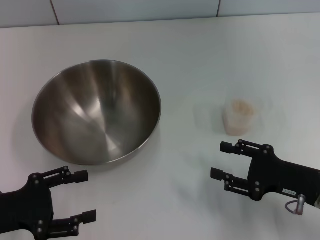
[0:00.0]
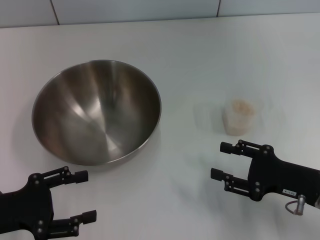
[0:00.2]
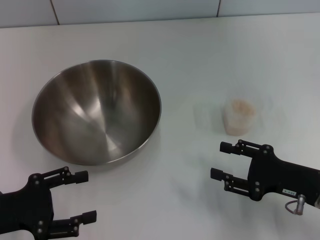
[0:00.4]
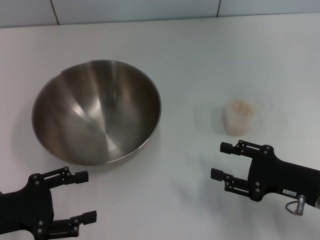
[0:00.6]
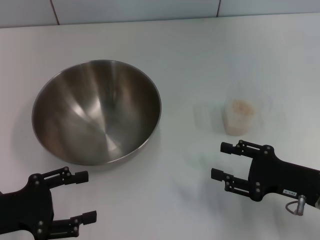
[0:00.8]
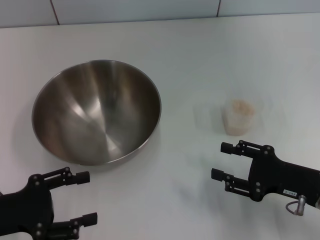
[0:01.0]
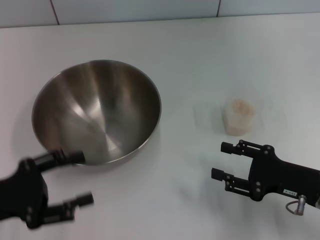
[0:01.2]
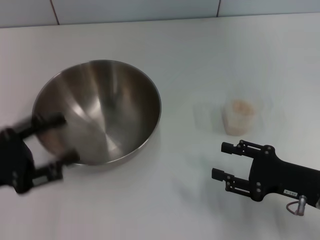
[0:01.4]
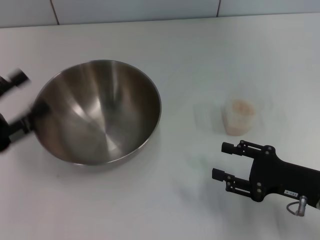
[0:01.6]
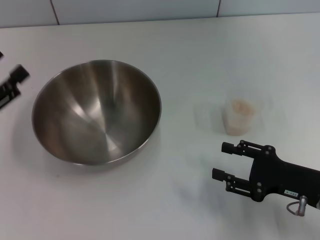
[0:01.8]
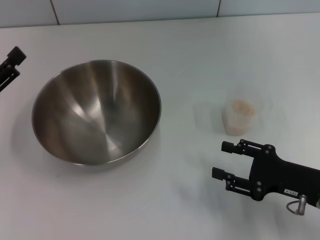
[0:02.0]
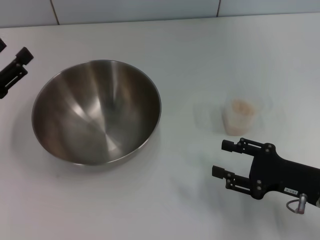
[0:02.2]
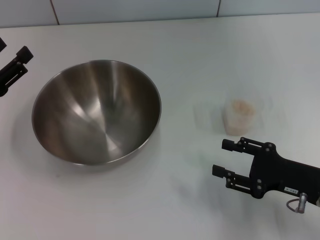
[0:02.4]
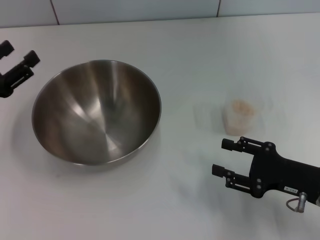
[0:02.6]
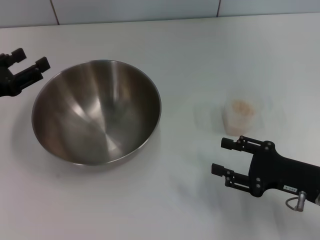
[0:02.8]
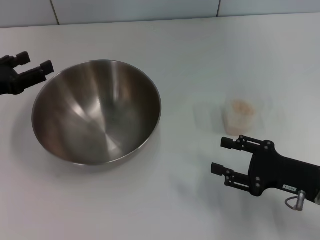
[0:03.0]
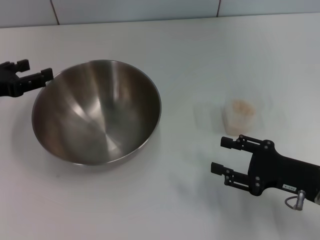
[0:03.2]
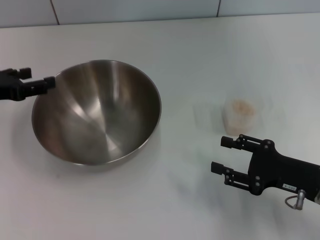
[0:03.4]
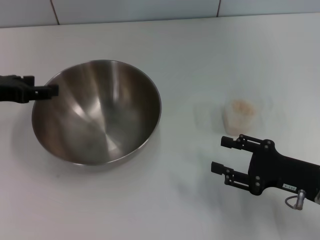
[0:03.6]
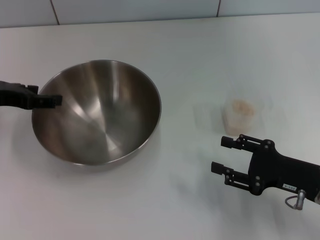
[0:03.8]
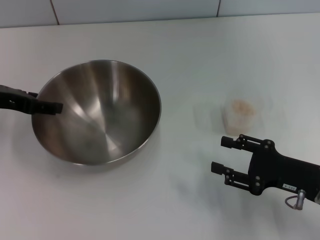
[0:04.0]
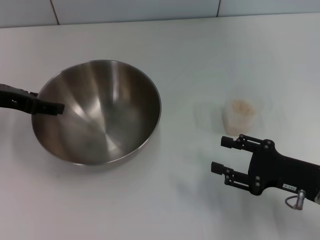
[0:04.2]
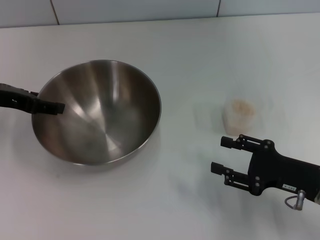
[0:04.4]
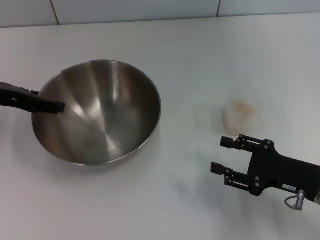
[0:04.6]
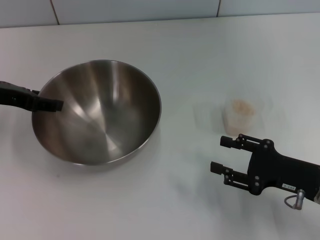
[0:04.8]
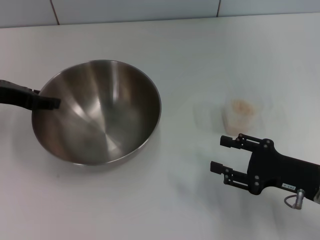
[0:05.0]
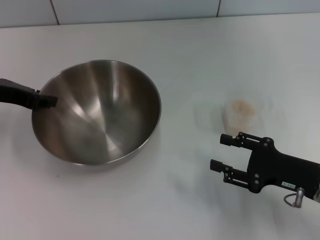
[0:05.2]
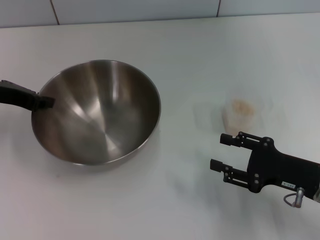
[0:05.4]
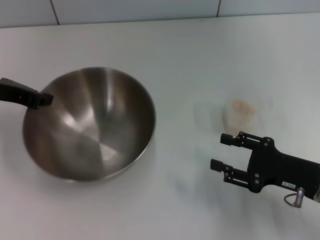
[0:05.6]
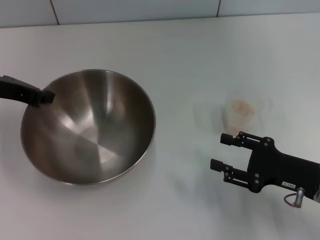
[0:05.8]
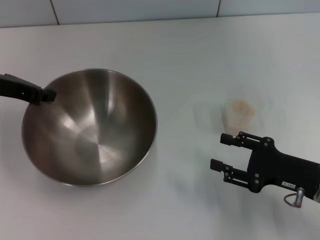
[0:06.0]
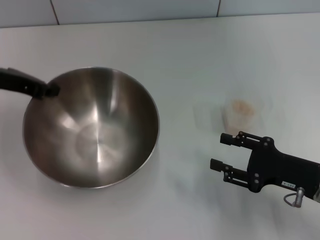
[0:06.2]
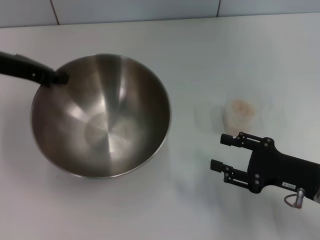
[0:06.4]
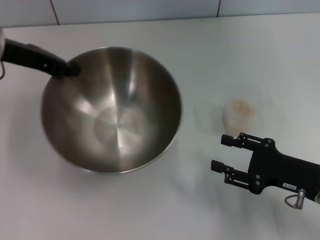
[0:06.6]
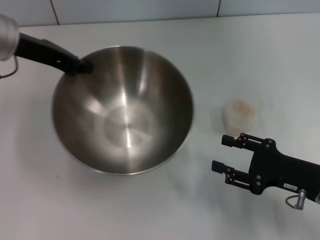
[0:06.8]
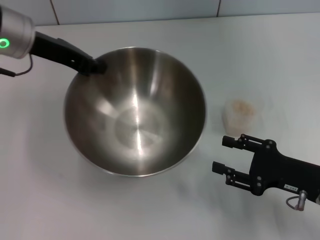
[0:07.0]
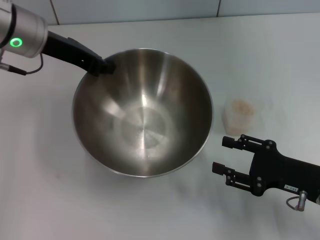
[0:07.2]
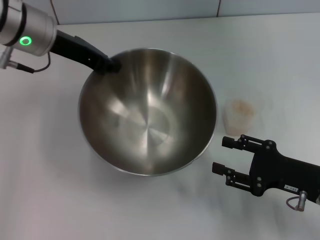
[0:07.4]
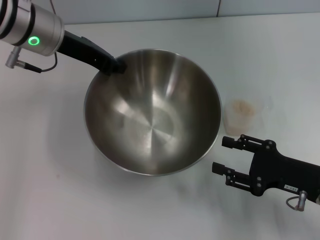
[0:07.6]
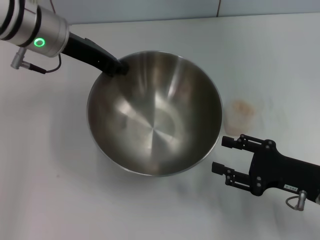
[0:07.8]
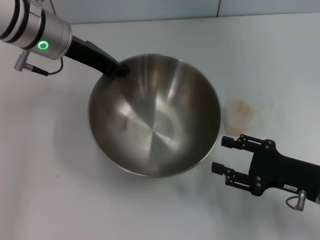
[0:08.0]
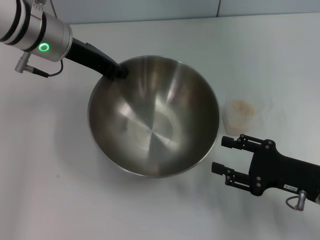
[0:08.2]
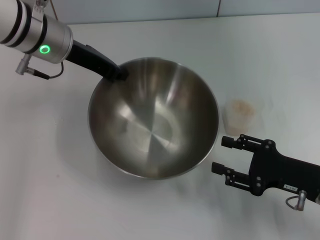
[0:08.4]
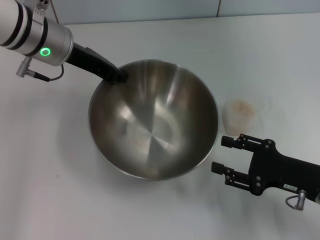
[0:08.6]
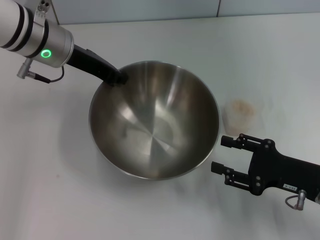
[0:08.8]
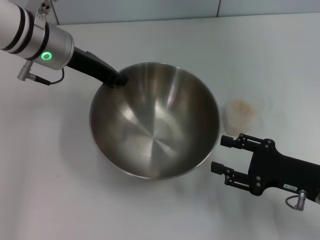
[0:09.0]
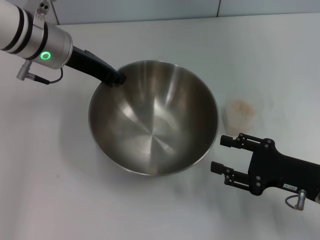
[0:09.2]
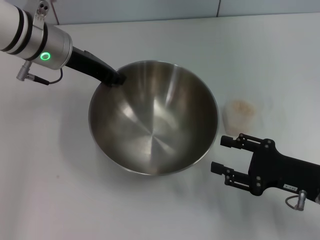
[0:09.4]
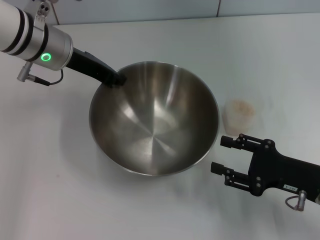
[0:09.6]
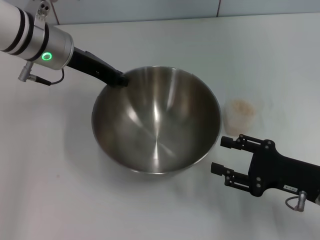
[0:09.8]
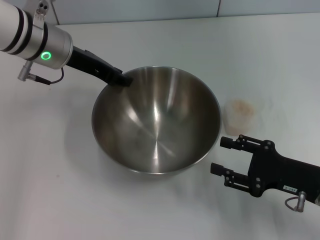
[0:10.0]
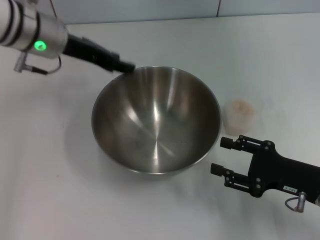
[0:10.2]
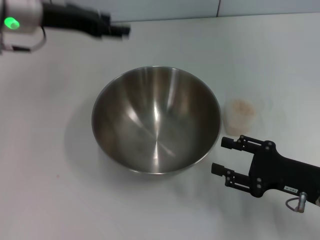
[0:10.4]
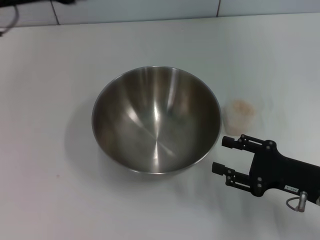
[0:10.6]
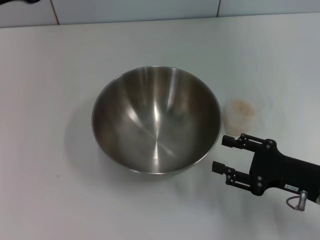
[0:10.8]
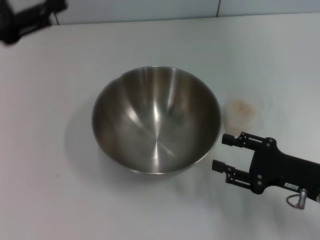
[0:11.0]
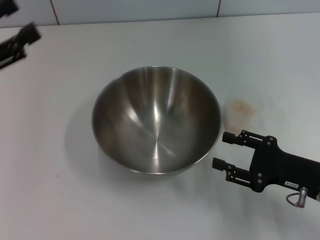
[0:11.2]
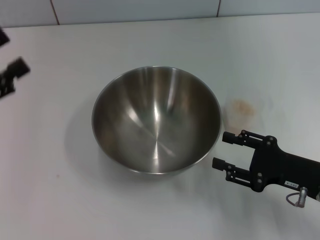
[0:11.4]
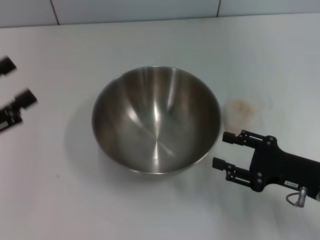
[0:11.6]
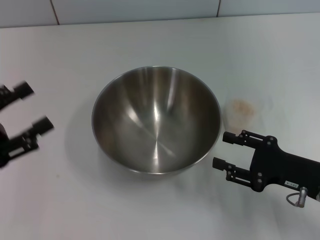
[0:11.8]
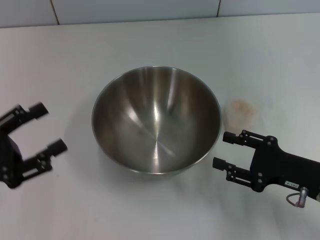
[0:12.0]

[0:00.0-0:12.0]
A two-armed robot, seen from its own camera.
Task of the whole recording: Place the bowl in the middle of the table with one hand and pour the rice from the grain cup into it with the other hand.
Step, 0:00.0 to 0:06.2: Pick up the bowl with the left gripper.
Step, 0:06.4 to 0:10.4: Place the bowl in the center of view with the left gripper.
0:01.6 to 0:03.0: The left gripper moves forward, about 10 cm.
0:03.0 to 0:04.4: The left gripper moves roughly 5 cm.
0:04.4 to 0:06.0: The left gripper closes.
0:06.0 to 0:07.6: The left gripper goes roughly 10 cm to the right.
0:07.6 to 0:09.0: The grippers make only small movements.
0:09.0 to 0:10.4: The left gripper opens its fingers.
0:10.4 to 0:12.0: The left gripper heads backward, to the left and downward, covering roughly 25 cm, and opens.

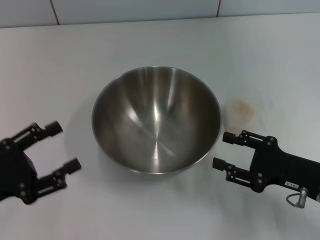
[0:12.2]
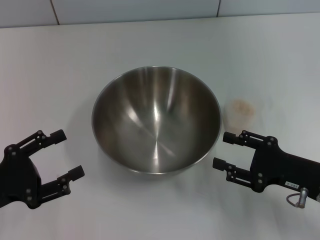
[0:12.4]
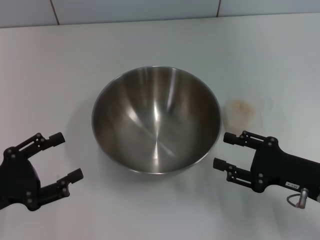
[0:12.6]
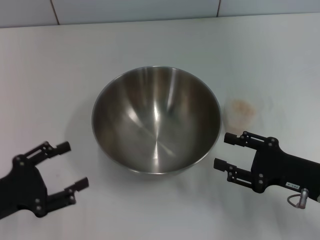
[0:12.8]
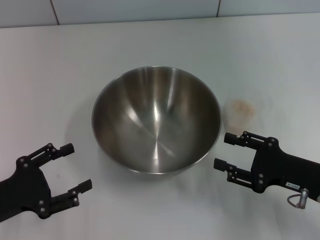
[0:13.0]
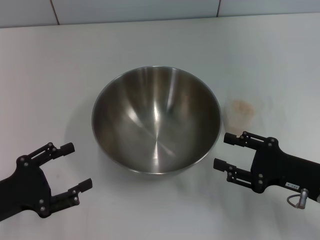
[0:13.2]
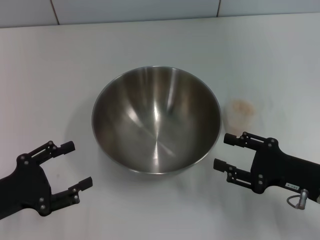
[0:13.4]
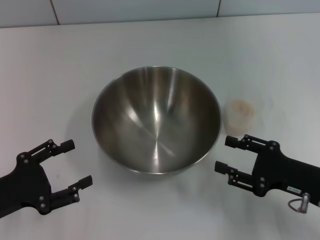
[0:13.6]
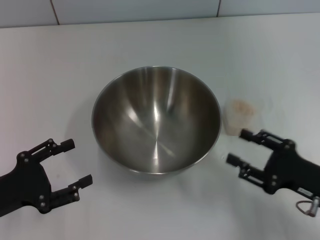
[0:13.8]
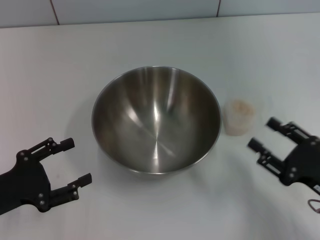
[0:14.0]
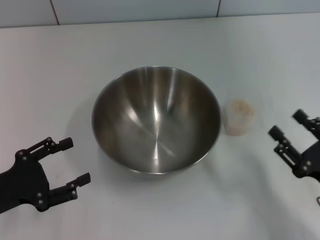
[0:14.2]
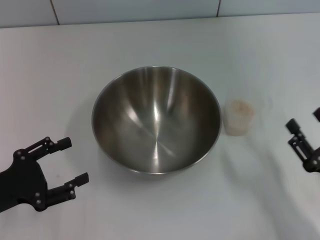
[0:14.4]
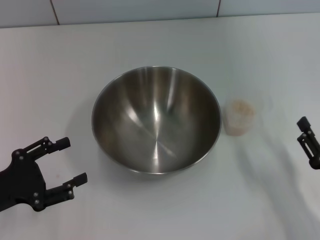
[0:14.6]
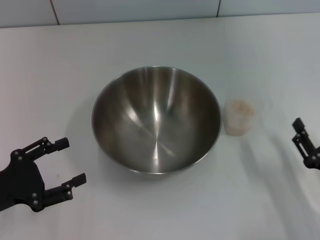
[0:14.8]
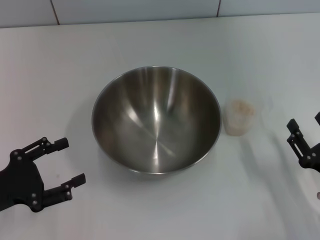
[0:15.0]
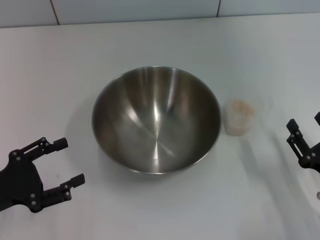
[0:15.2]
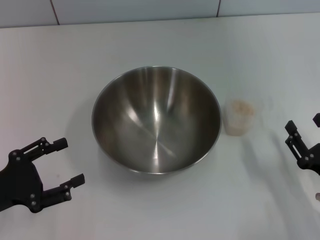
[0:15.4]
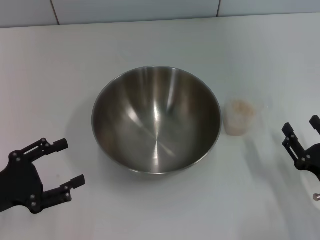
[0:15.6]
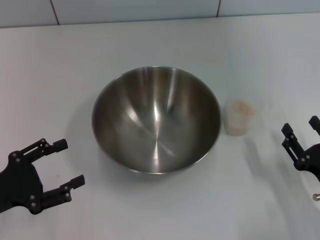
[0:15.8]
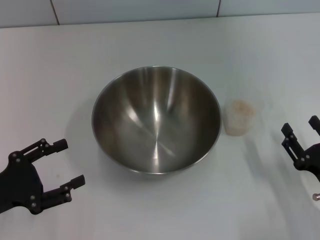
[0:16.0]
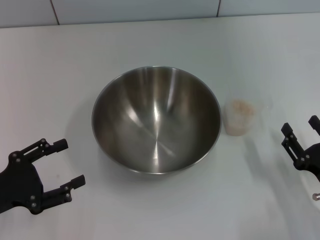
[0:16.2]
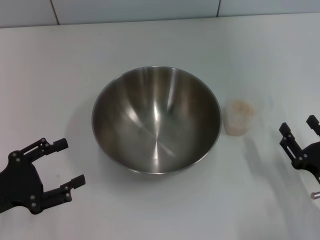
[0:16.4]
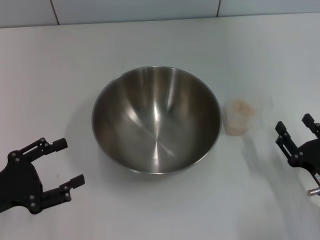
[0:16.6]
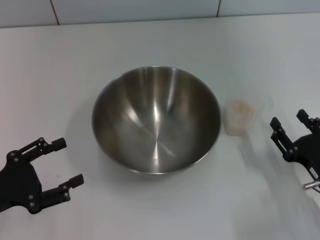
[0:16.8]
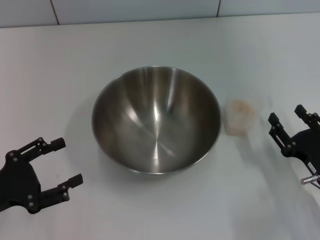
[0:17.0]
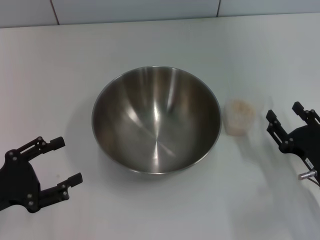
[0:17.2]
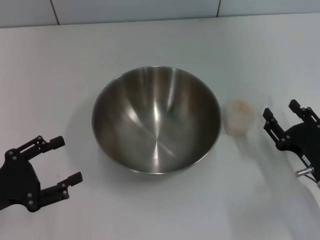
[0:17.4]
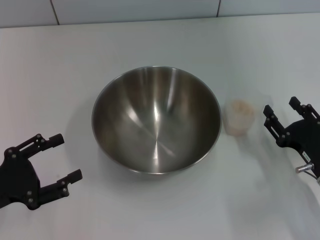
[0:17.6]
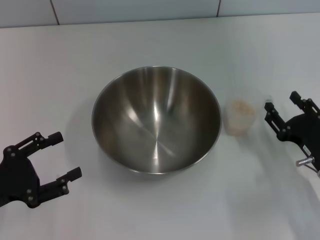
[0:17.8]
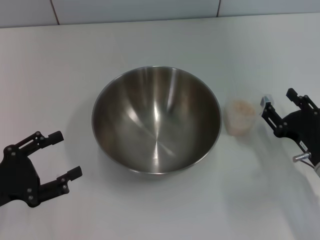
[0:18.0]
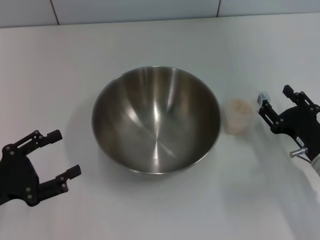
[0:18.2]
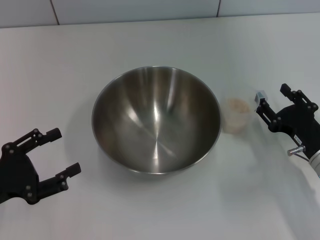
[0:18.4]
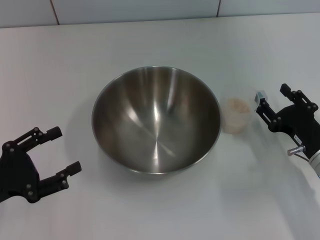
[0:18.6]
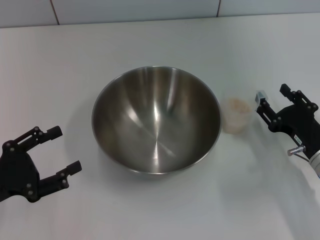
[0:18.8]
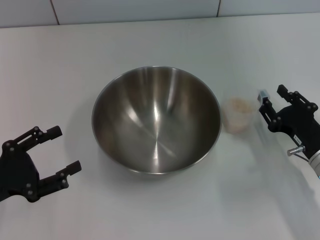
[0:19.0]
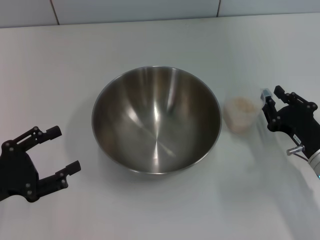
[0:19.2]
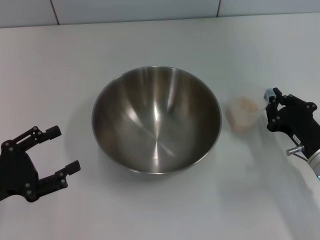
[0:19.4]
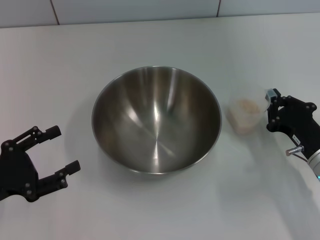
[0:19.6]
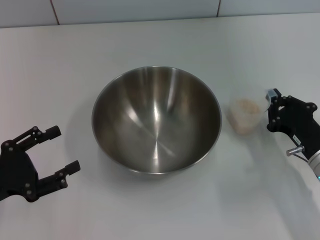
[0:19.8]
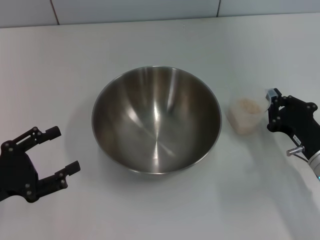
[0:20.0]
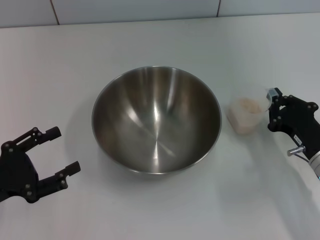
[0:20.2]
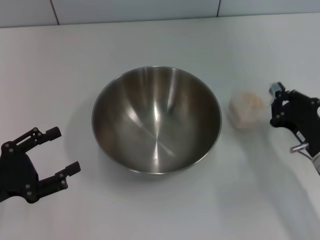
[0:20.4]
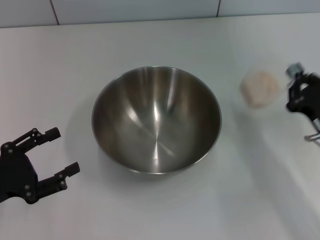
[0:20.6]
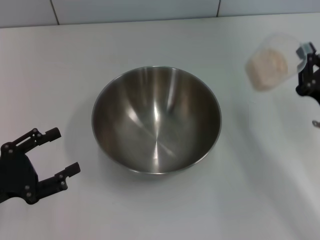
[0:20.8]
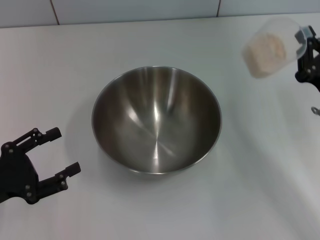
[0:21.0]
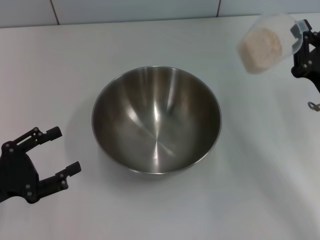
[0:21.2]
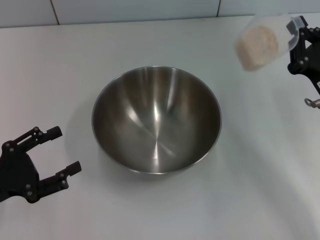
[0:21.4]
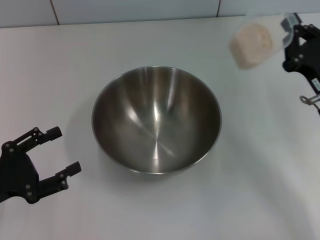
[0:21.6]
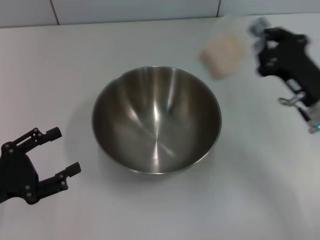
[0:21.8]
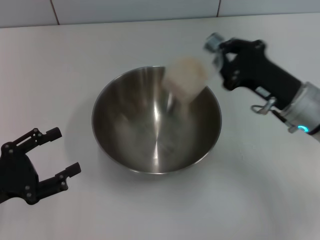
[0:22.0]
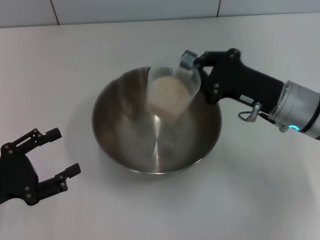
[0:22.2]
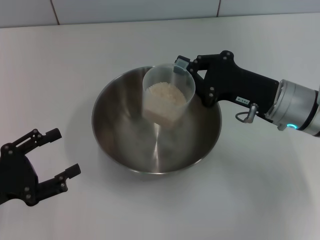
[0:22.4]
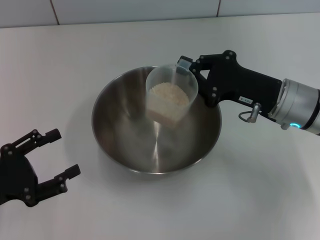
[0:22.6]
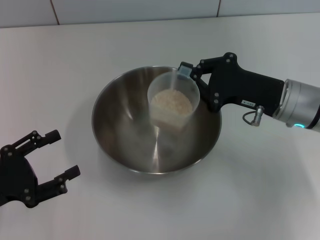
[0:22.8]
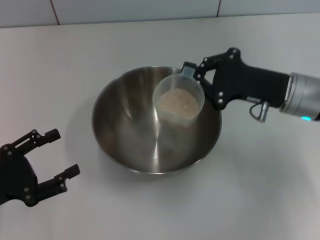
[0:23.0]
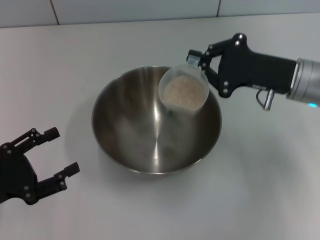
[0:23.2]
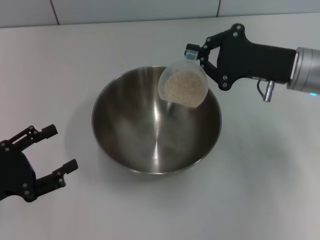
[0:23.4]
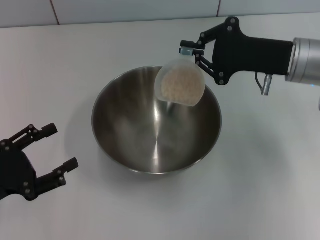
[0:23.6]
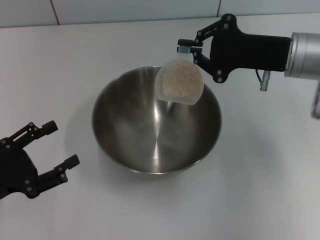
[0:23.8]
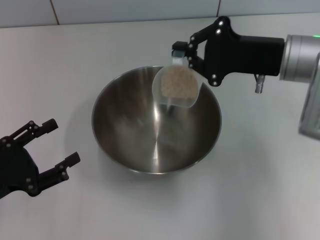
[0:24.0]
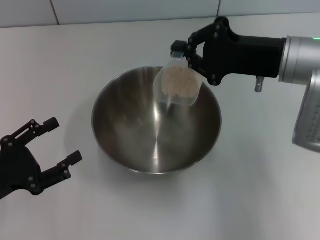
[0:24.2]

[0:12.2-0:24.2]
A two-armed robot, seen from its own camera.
Task of the whole recording: Place the bowl in the middle of the table with one hand and pour the rice from the grain cup into it with the other hand.
Step, 0:12.2 to 0:21.2: Pick up the cup with rice in it with the right gripper.
0:12.2 to 0:13.8: There are only small adjustments of the grippers.
0:15.2 to 0:16.6: The grippers stay close to where they were, moving slightly.
0:16.6 to 0:18.2: The right gripper moves forward, about 5 cm.
0:18.2 to 0:19.8: The right gripper closes.
0:19.8 to 0:21.2: The right gripper travels upward by some 5 cm.
0:21.2 to 0:22.6: The right gripper moves to the left, about 5 cm.
0:22.6 to 0:24.2: The right gripper goes roughly 5 cm upward.
